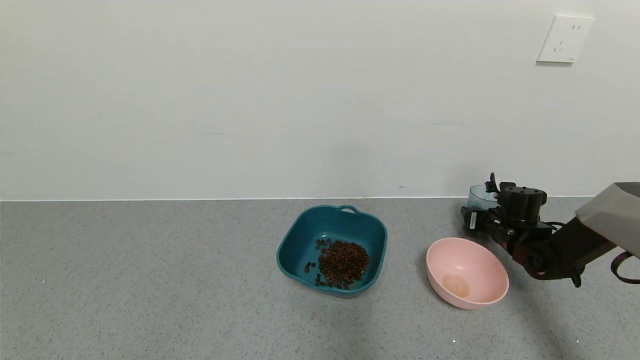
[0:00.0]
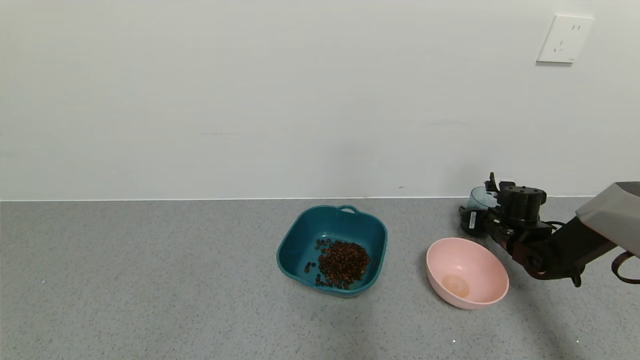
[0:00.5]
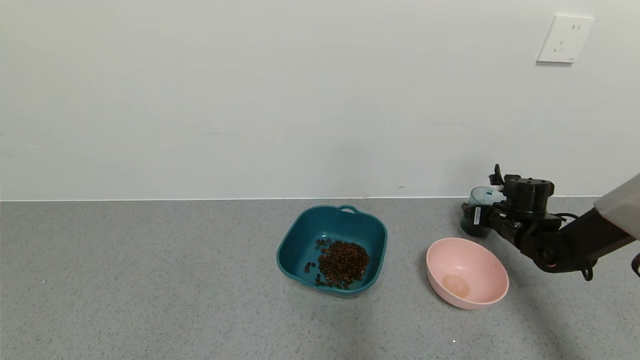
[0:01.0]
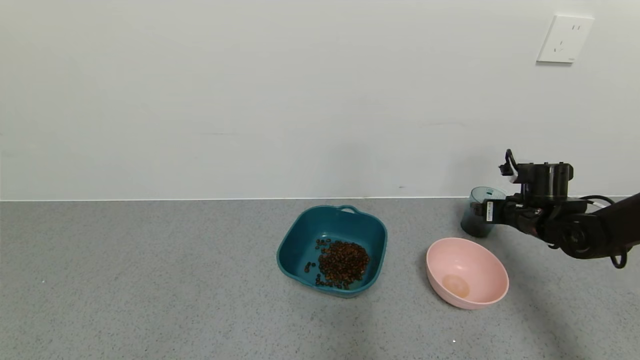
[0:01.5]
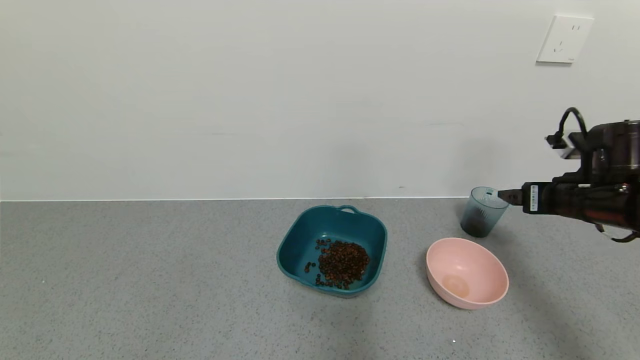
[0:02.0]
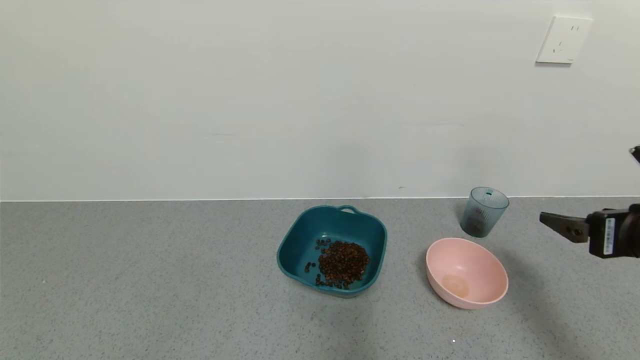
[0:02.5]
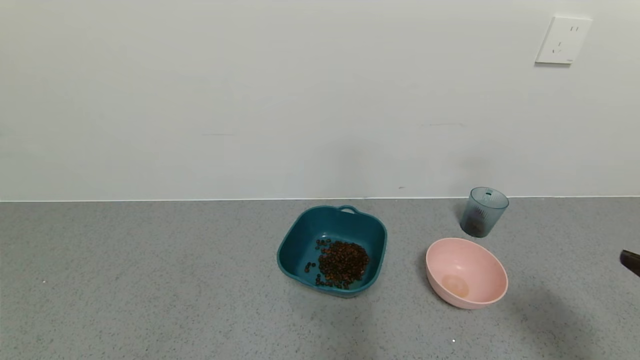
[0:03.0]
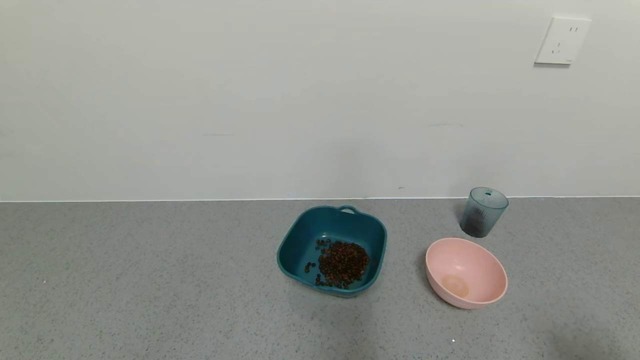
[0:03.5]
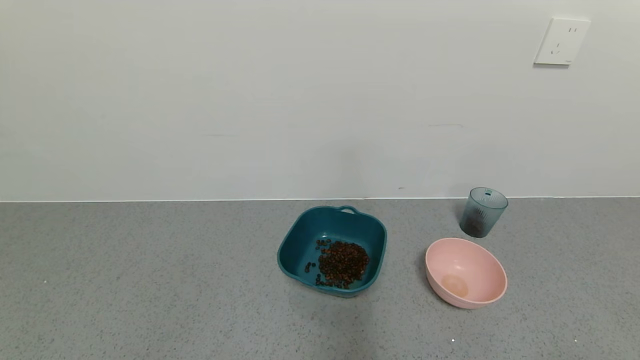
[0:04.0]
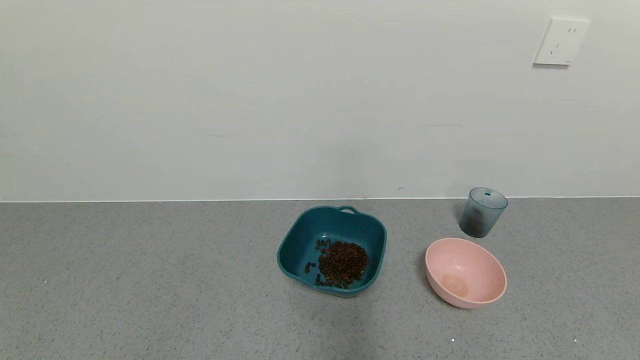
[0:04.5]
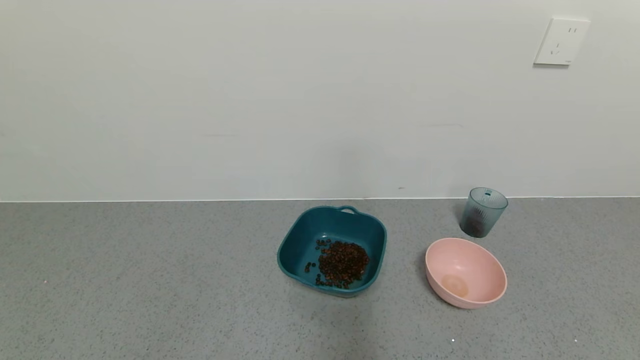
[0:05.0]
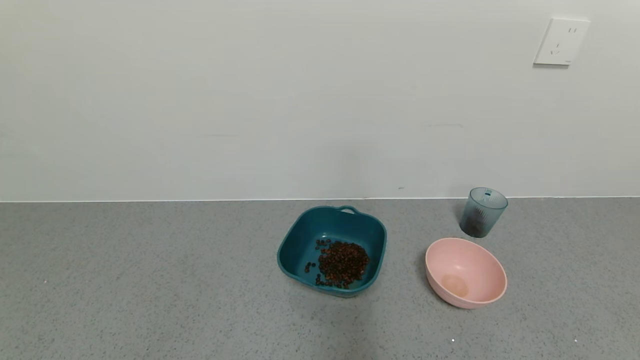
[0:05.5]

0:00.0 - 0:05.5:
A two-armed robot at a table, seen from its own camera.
Task of the whole recording: use a gripper to pick up the cup and pour the solid into a bowl or tray.
0:00.0 - 0:02.0: The right gripper is displaced upward and backward by some 20 cm, and opens.
0:02.0 - 0:03.5: The right gripper heads backward, covering about 30 cm.

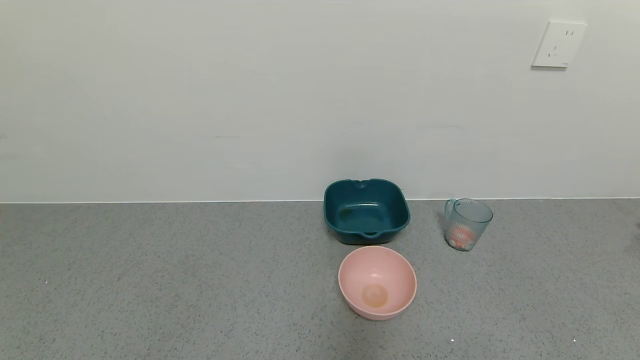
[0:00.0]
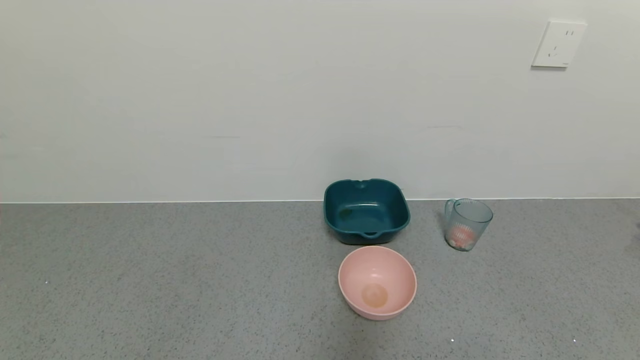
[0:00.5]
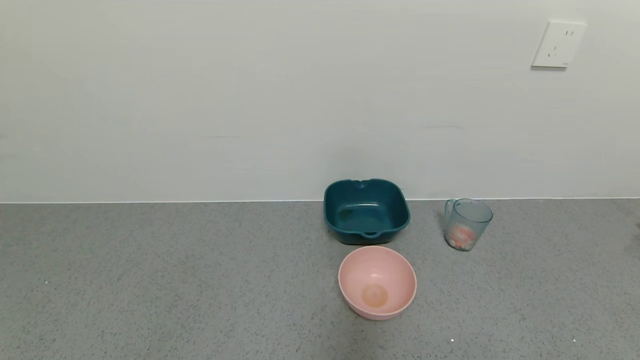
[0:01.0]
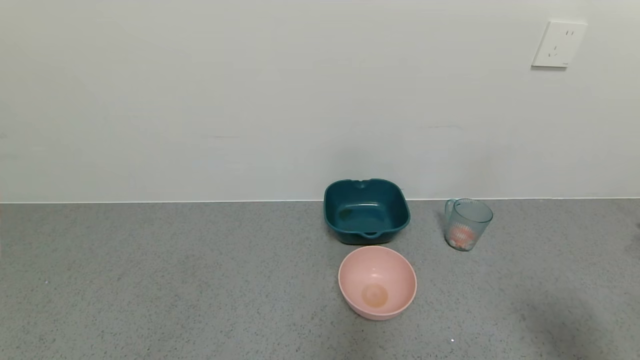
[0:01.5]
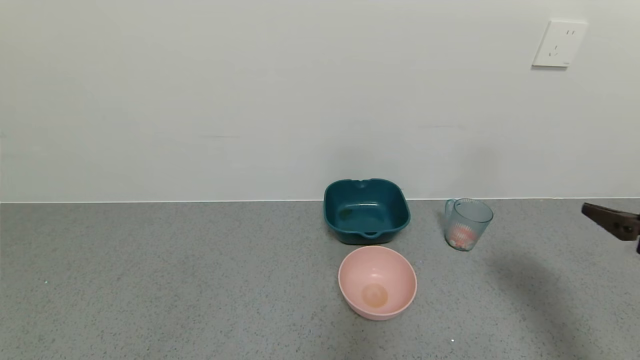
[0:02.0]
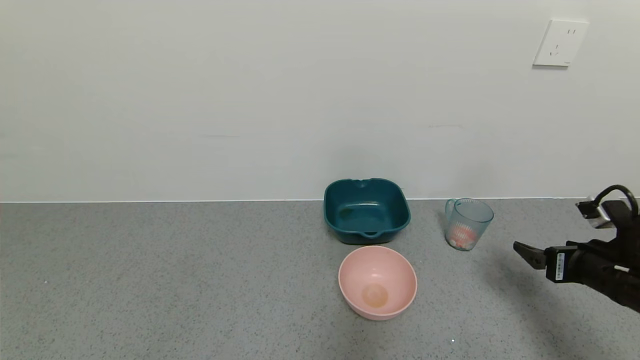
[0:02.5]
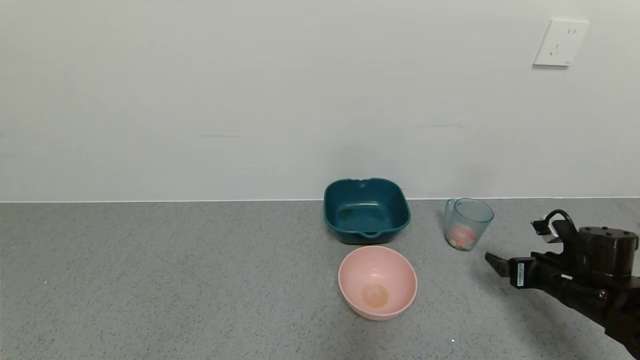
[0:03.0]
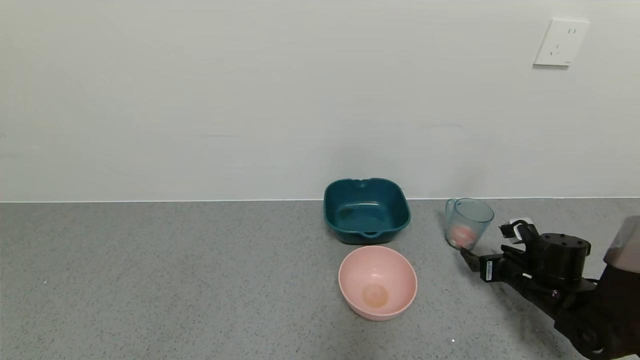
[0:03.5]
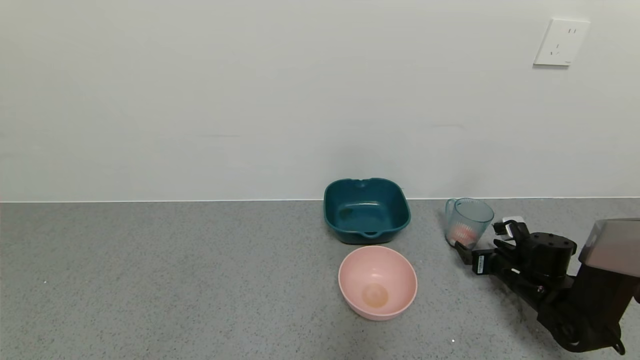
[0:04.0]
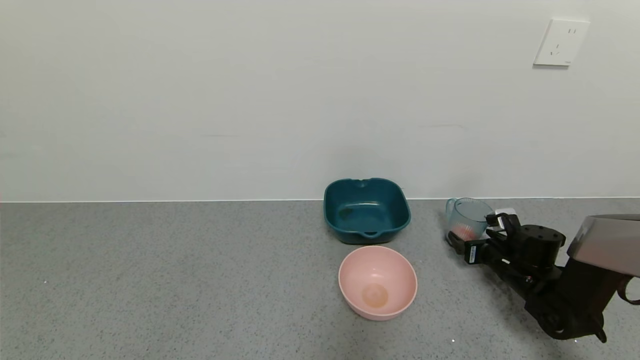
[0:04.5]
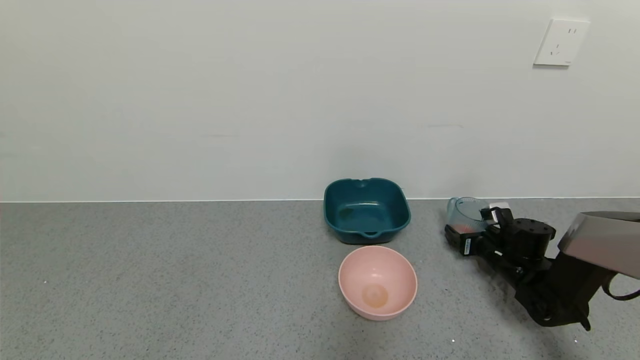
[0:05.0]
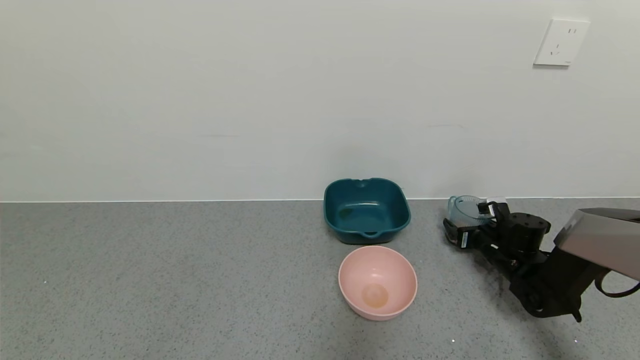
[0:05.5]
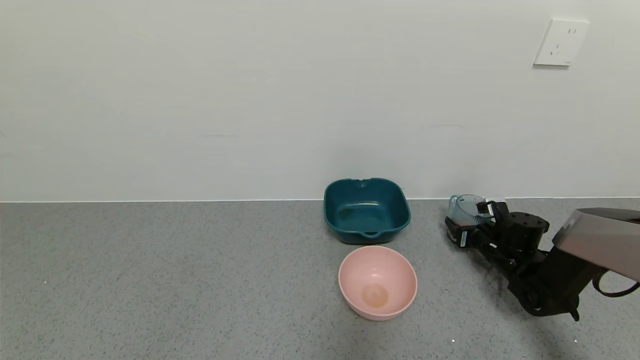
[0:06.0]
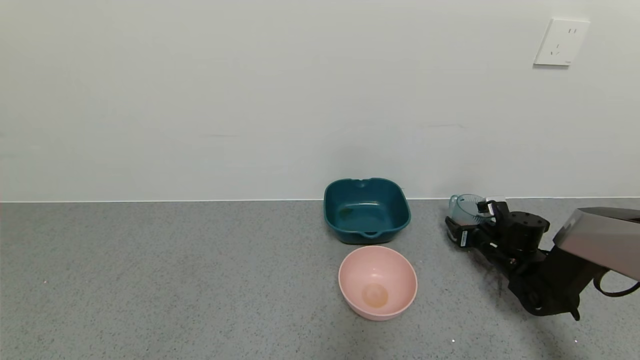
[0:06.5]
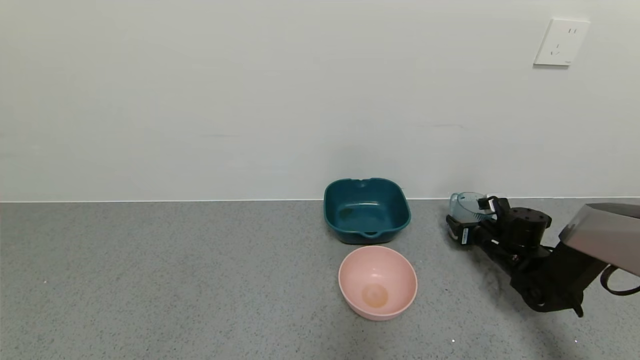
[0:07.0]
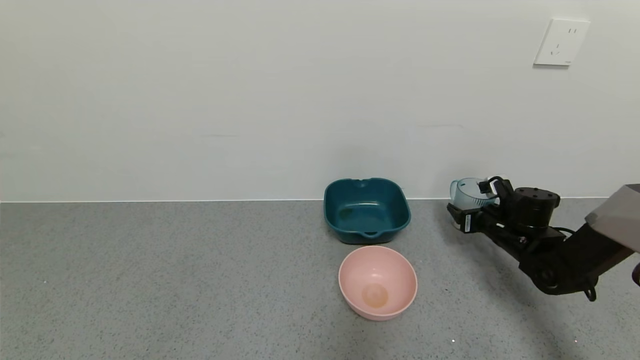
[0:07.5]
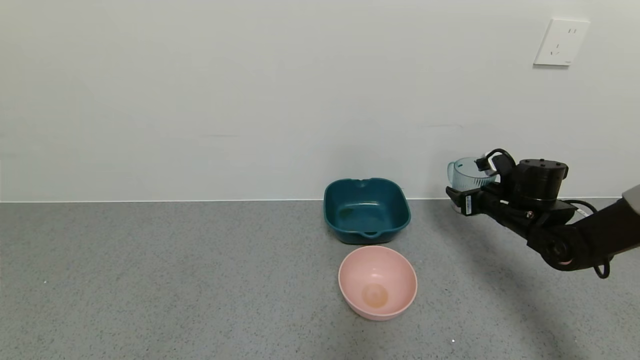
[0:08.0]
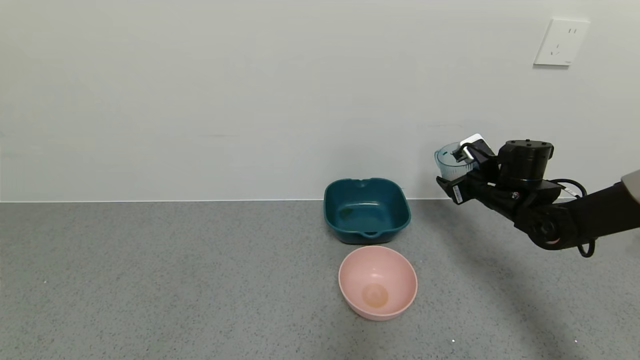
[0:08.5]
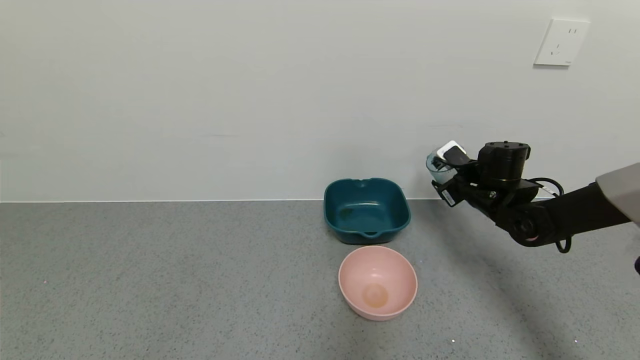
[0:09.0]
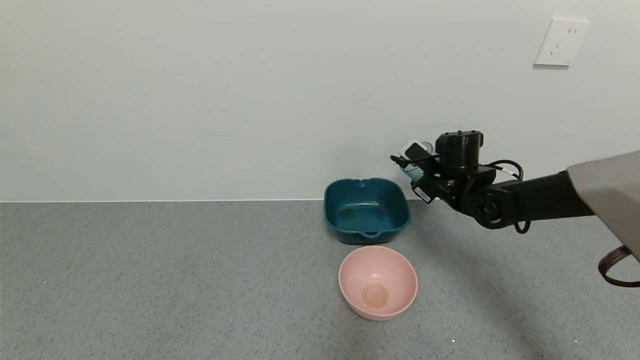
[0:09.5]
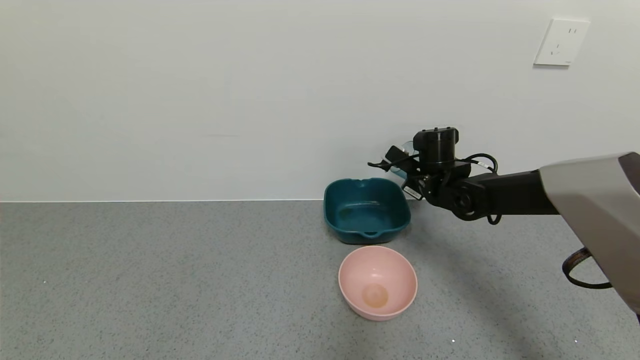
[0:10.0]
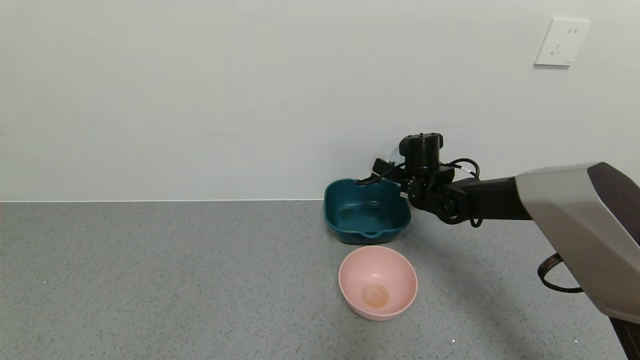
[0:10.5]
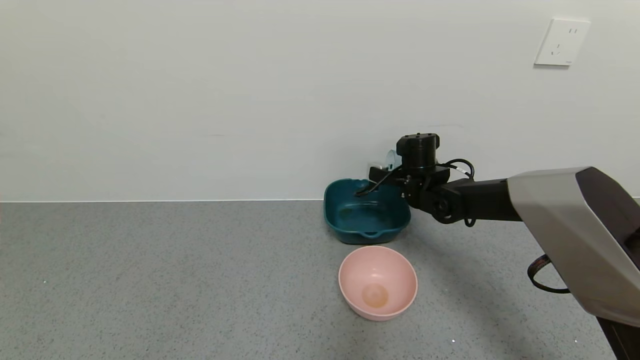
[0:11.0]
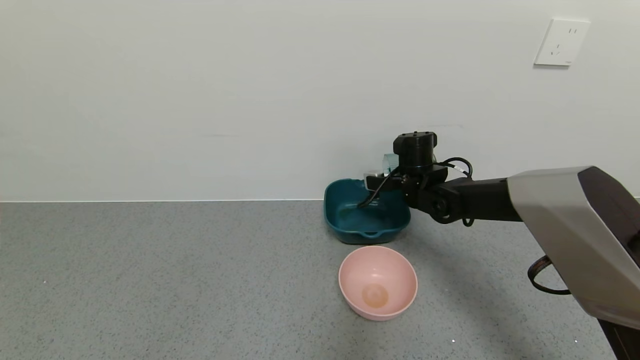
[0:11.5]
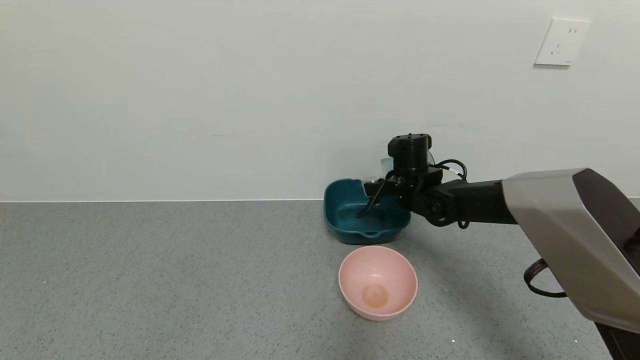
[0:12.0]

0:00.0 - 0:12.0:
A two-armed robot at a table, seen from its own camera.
Task of the whole recording: use a gripper to pick up the cup and pour the solid into a bowl or tray.
Step, 0:00.0 - 0:07.0: Grasp the glass of shrimp with the right gripper.
0:00.0 - 0:02.0: The right gripper is displaced forward and upward by about 25 cm.
0:02.0 - 0:04.0: The right gripper goes approximately 30 cm downward and forward.
0:04.0 - 0:06.0: The right gripper travels forward by roughly 5 cm, and closes.
0:06.0 - 0:08.0: The right gripper travels upward by some 10 cm.
0:08.0 - 0:10.0: The right gripper heads to the left, covering some 15 cm.

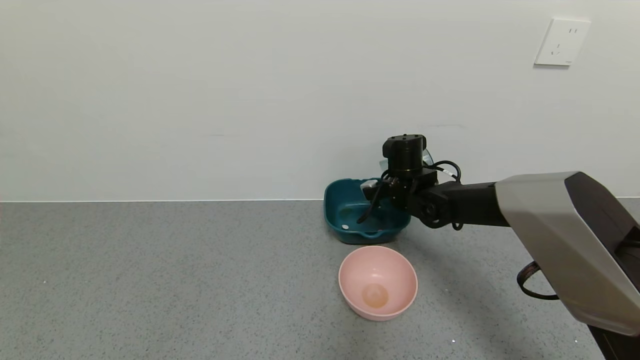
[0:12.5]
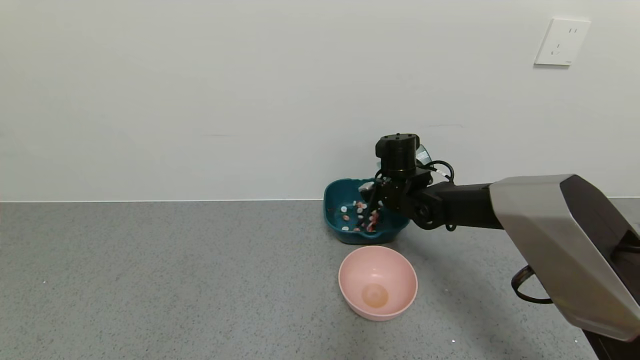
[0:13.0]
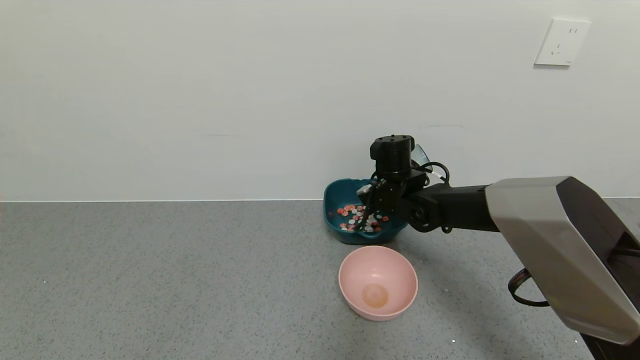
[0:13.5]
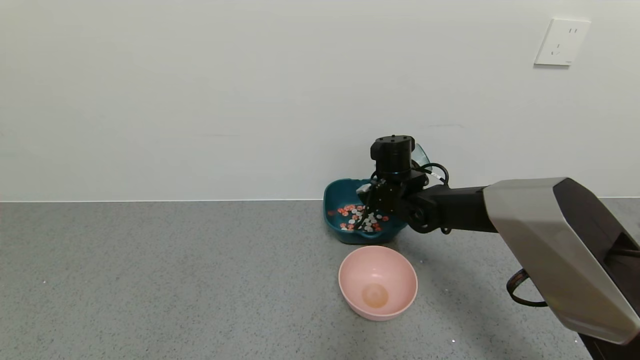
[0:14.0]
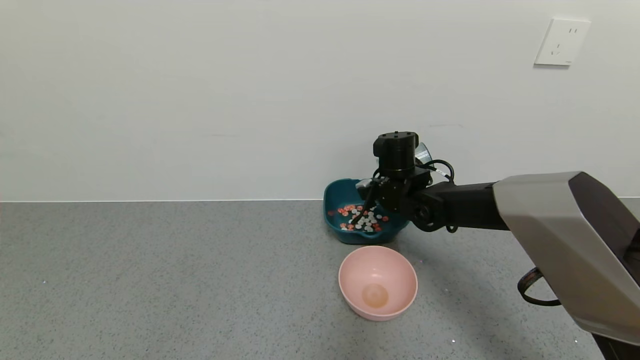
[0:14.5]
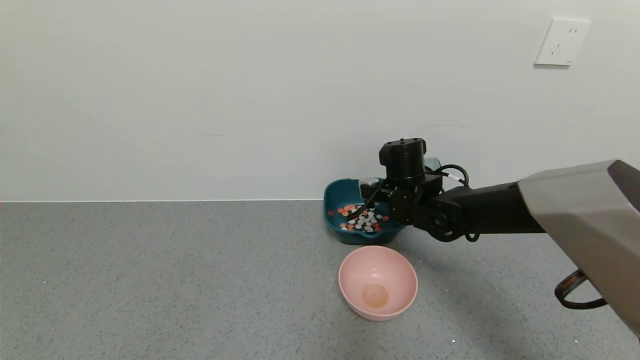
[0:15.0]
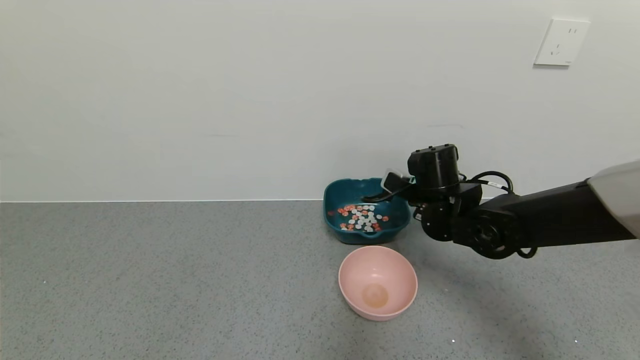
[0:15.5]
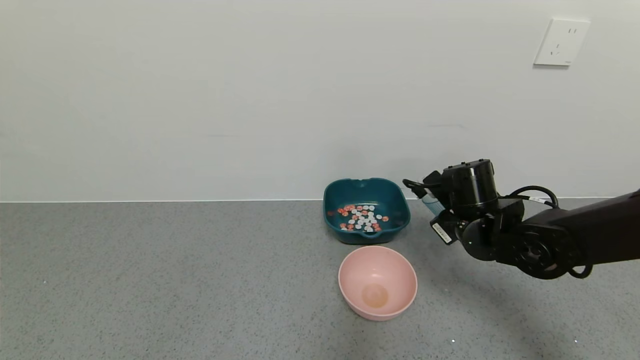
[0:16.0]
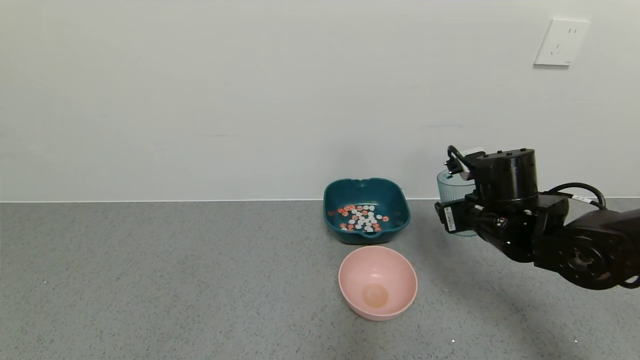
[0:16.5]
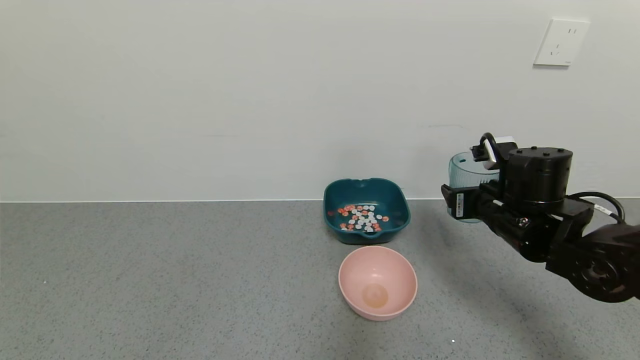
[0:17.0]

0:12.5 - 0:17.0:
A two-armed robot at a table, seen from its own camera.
Task of the whole recording: use a gripper to pick up the cup and pour the solid into a bowl or tray.
Step, 0:12.5 - 0:15.0: Pour the shrimp beans into the green bowl with the right gripper.
0:12.5 - 0:14.5: The grippers make only small movements.
0:14.5 - 0:17.0: The right gripper goes some 20 cm to the right and backward.
